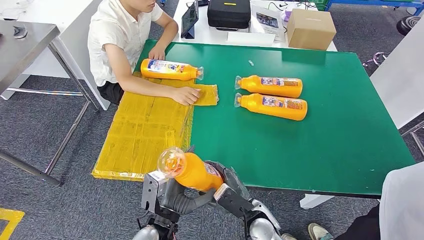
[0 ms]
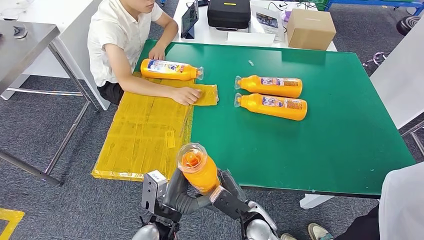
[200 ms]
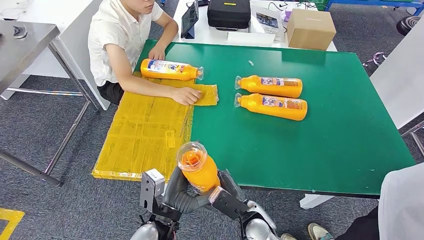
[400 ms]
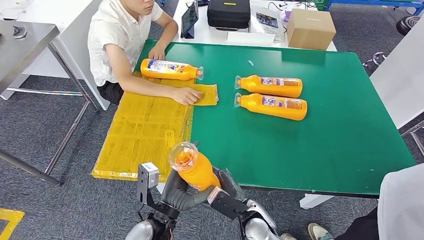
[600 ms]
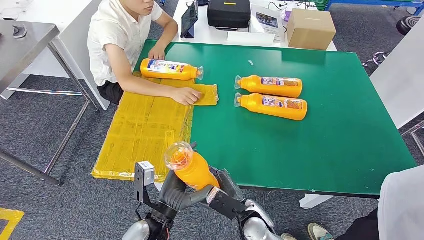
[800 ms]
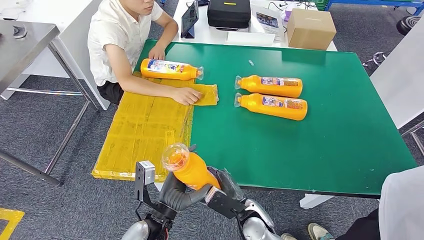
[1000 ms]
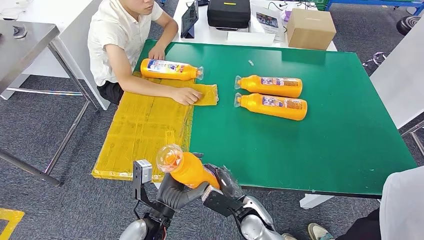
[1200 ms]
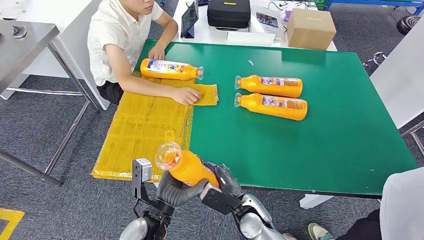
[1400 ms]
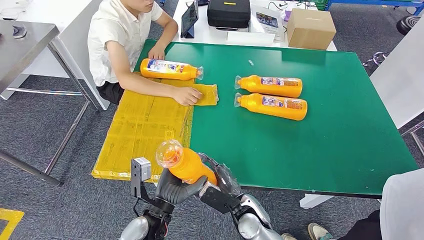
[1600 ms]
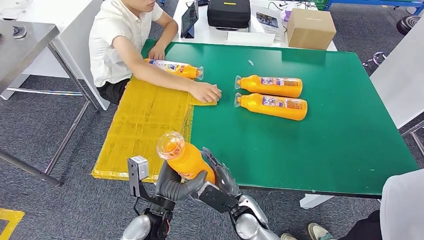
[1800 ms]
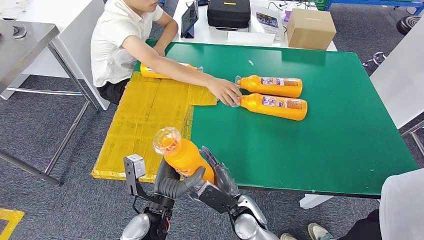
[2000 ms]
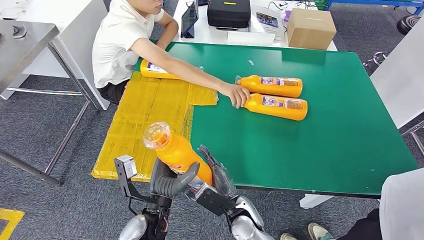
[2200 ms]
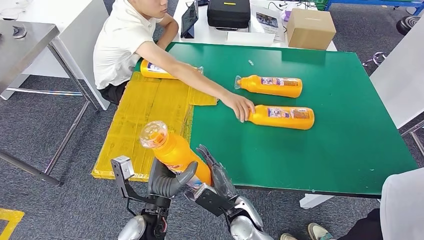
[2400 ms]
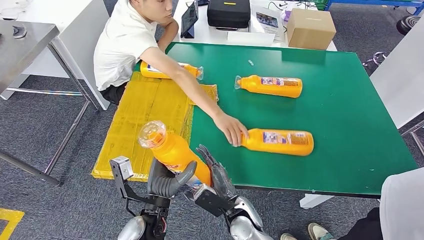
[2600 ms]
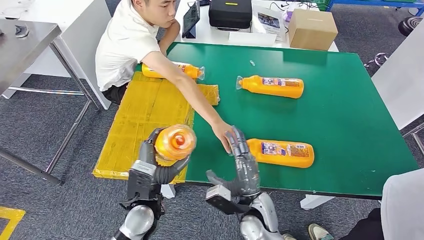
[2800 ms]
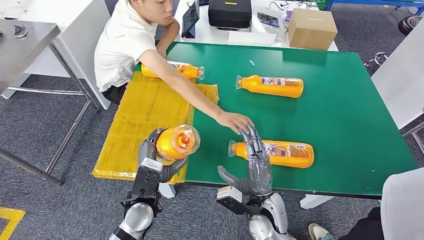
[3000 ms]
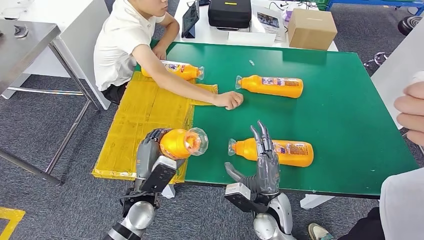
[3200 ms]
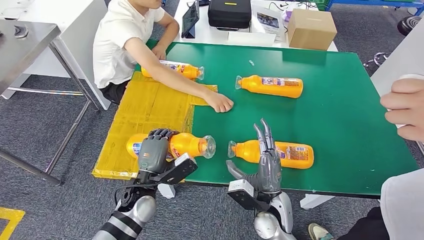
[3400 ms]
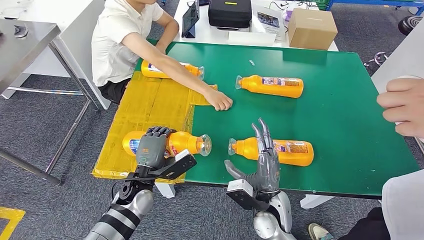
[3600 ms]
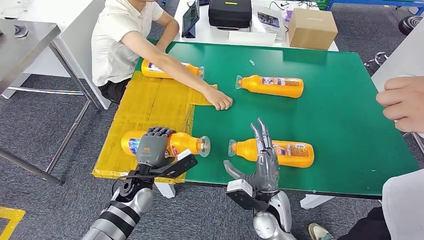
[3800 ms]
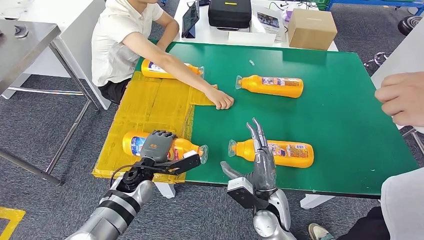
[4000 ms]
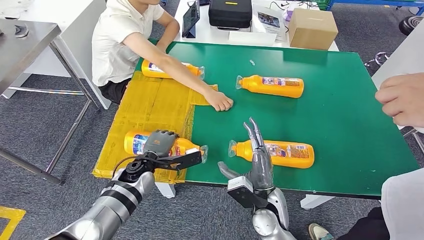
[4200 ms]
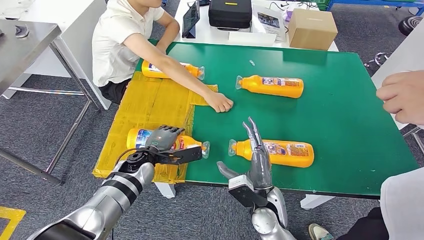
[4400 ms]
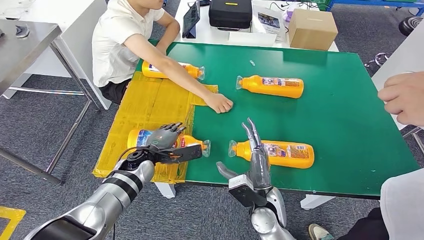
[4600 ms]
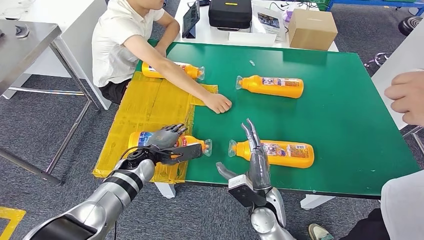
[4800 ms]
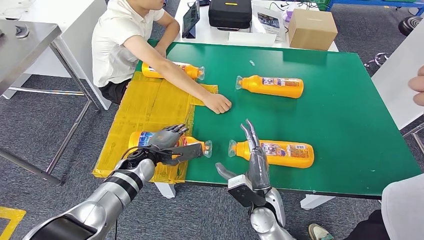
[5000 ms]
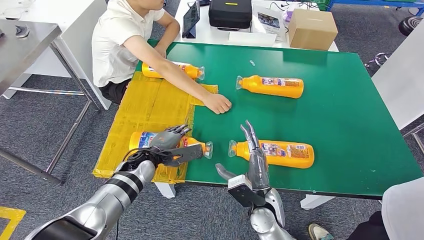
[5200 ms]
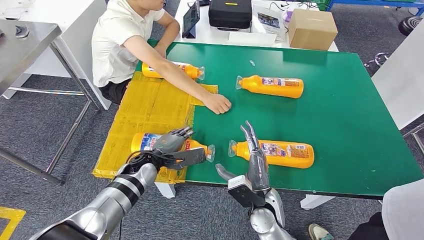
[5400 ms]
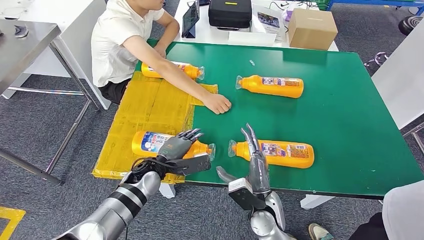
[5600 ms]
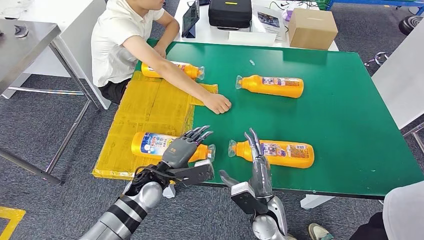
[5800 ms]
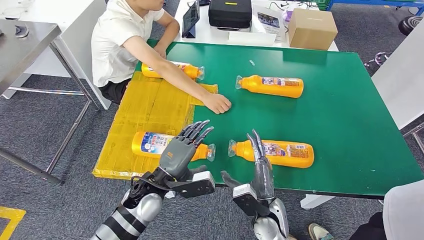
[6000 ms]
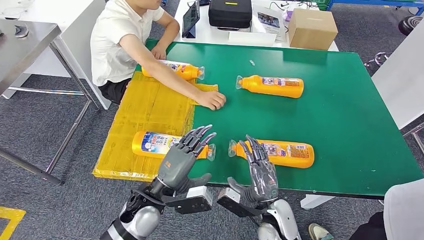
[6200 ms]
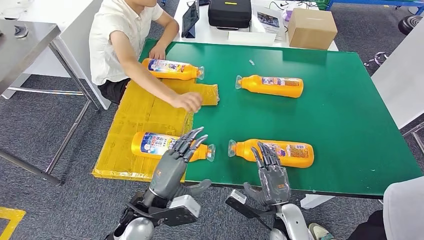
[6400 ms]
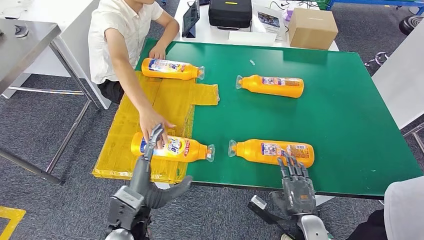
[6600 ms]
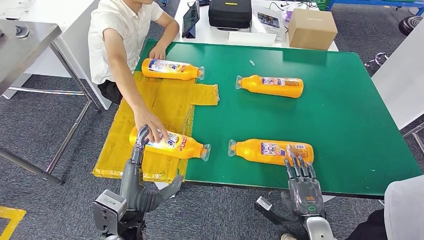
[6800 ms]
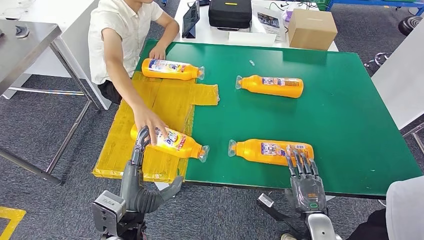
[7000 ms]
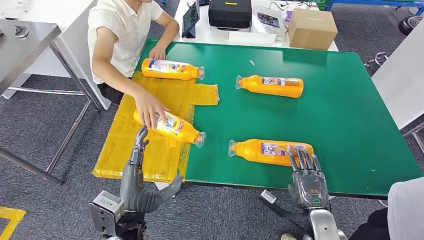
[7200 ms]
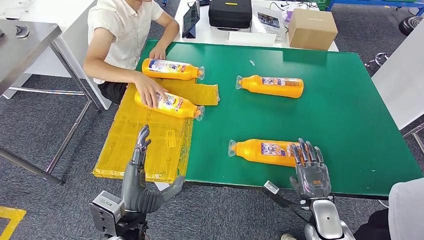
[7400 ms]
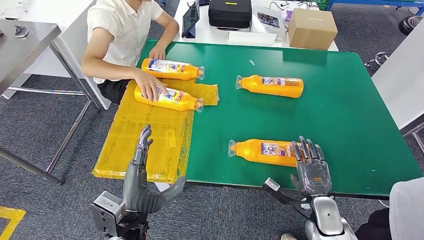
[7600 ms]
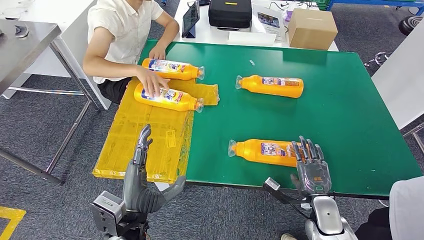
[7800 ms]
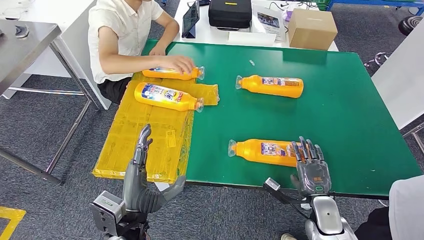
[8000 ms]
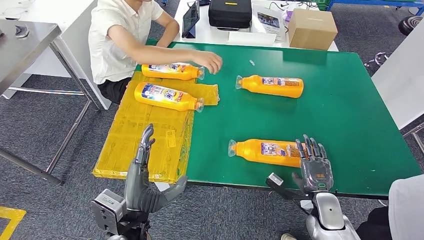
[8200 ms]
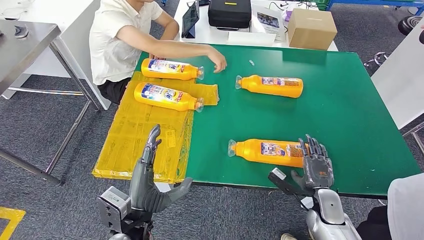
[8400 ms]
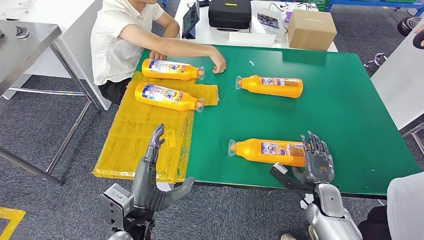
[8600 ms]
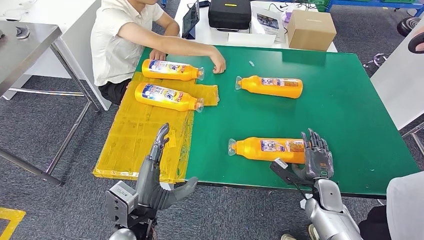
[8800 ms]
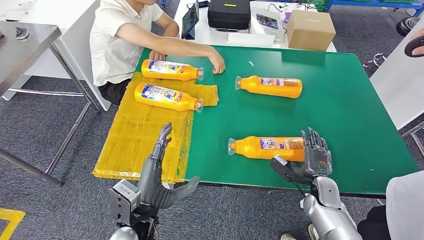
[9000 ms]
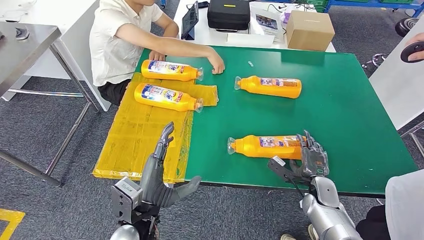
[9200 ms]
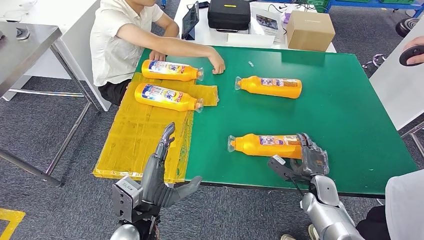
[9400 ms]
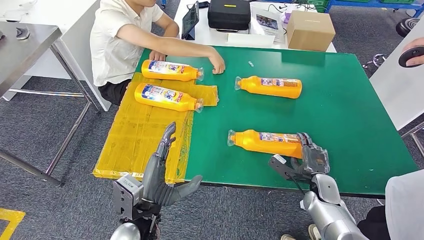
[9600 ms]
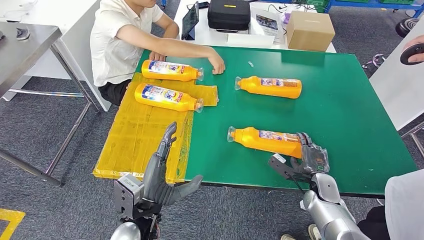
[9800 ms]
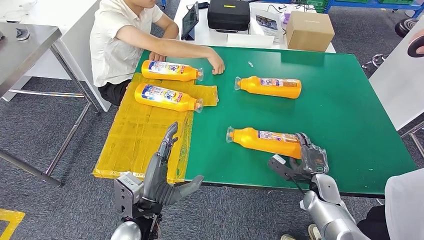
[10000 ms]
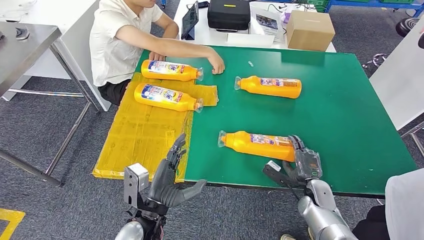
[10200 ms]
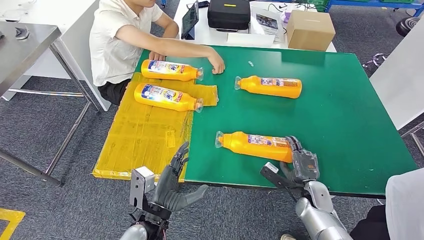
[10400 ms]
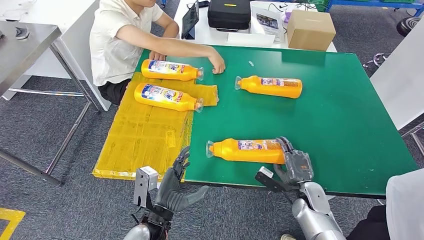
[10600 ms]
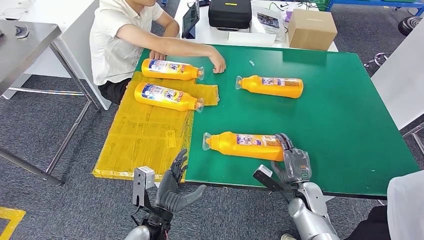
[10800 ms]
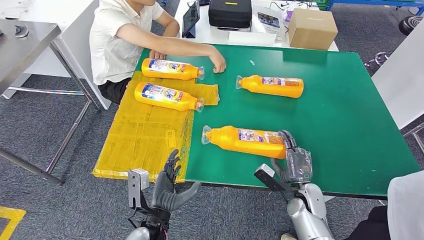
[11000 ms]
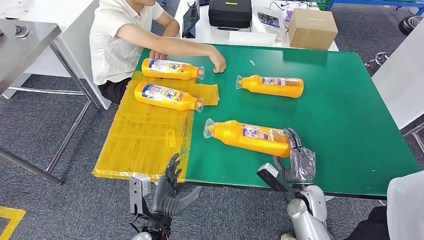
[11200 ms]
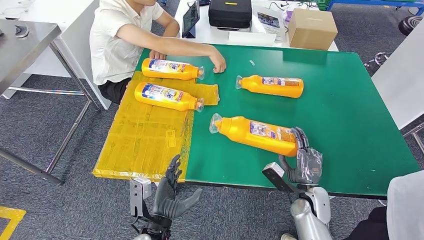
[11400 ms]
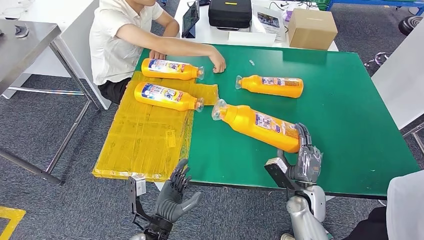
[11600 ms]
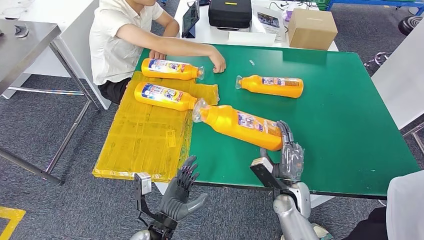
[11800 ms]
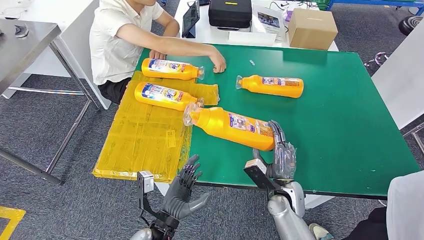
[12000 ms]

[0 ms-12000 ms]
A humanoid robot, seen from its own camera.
Step, 800 ms to 5200 ms: Flip the fast-moving consumer goods bottle to the front side.
0 ms to 1600 ms: The hands stay close to where they were, moving slightly.
3000 ms to 4400 ms: The left hand goes approximately 10 cm forward.
4400 ms to 6000 ms: The left hand is displaced backward by approximately 10 cm.
6000 ms to 7600 ms: The left hand goes about 10 cm backward; the right hand is displaced to the right by roughly 15 cm.
7600 ms to 9000 ms: The right hand heads forward, covering approximately 5 cm.
10400 ms to 12000 ms: The right hand moves to the left, some 10 cm.

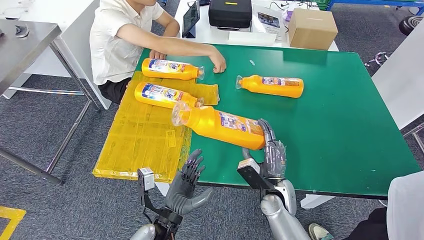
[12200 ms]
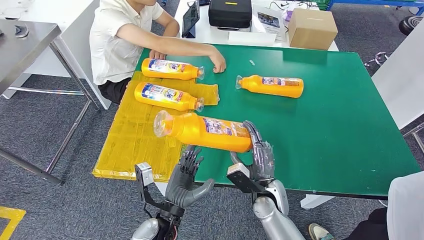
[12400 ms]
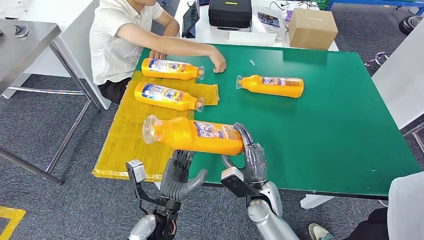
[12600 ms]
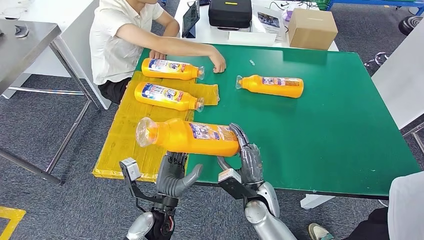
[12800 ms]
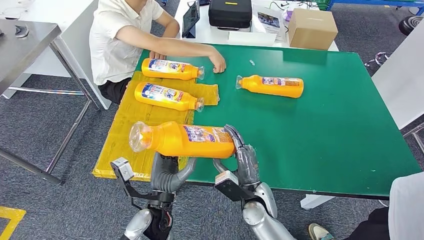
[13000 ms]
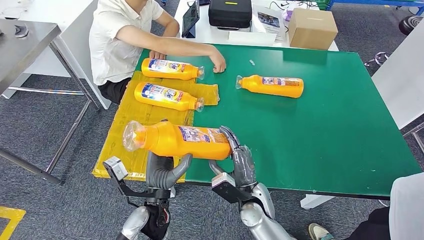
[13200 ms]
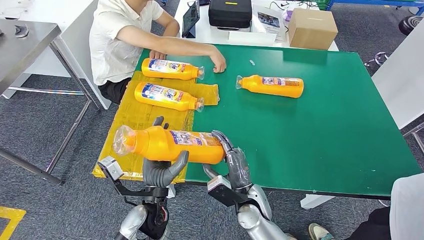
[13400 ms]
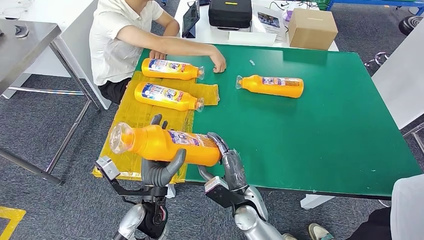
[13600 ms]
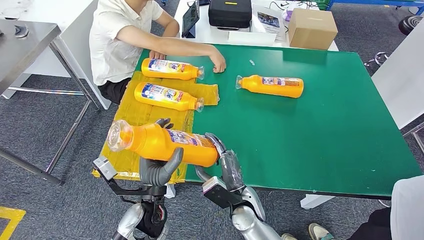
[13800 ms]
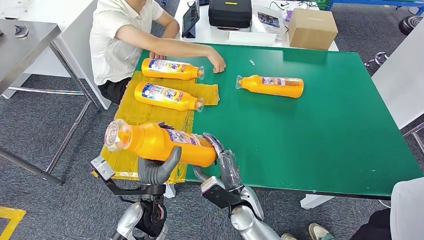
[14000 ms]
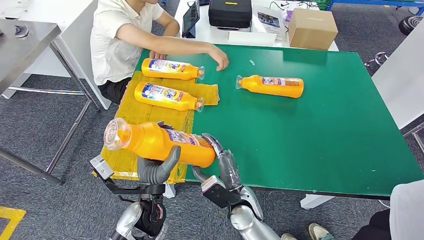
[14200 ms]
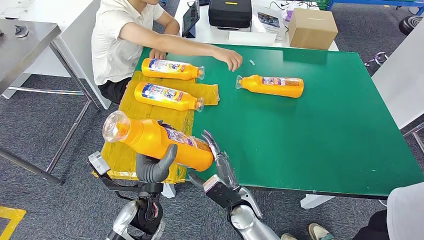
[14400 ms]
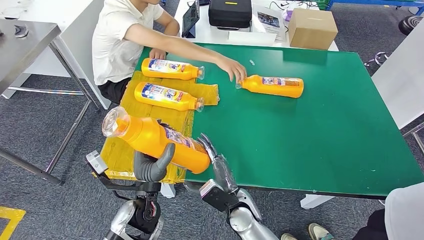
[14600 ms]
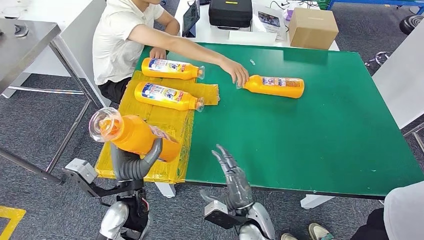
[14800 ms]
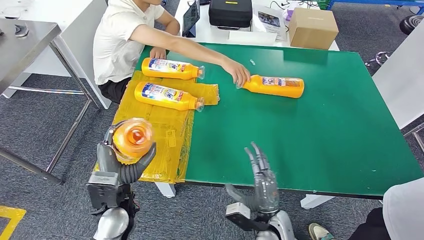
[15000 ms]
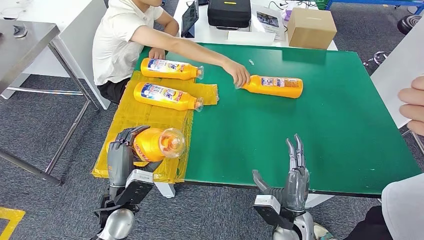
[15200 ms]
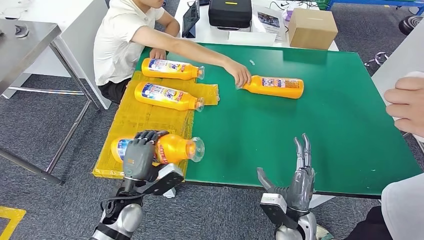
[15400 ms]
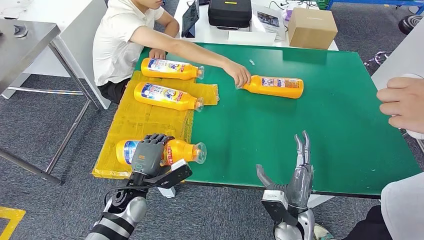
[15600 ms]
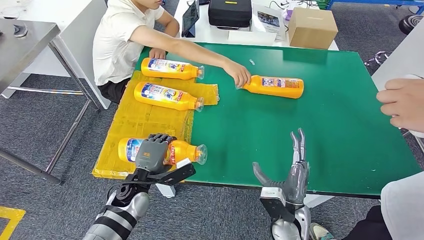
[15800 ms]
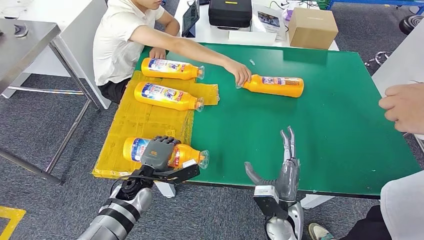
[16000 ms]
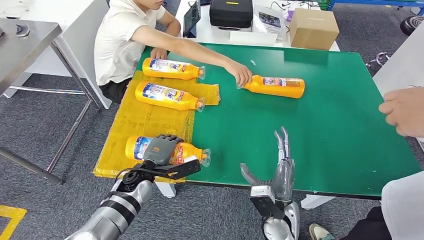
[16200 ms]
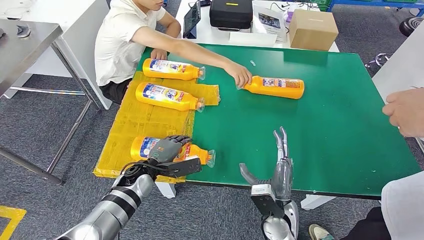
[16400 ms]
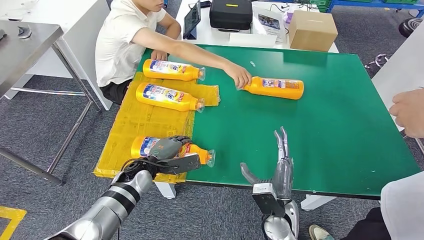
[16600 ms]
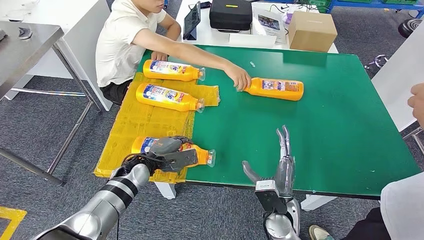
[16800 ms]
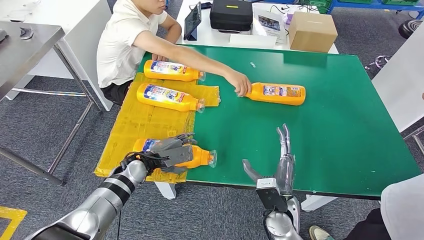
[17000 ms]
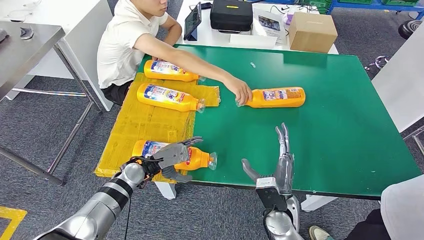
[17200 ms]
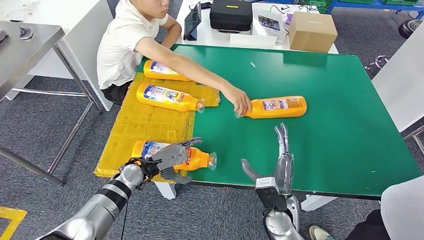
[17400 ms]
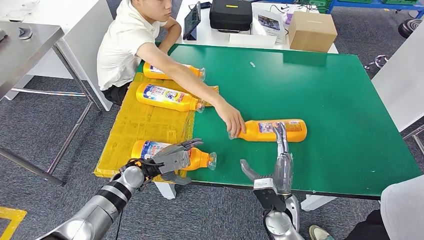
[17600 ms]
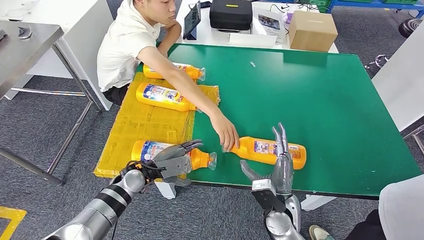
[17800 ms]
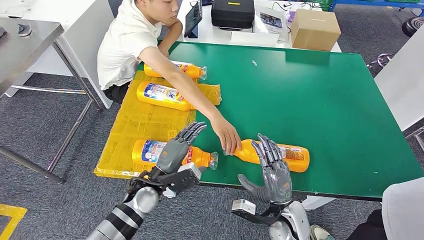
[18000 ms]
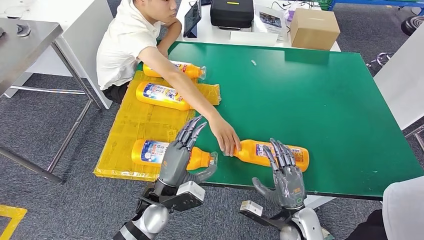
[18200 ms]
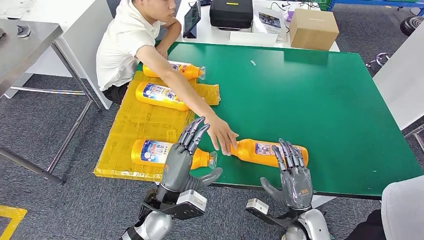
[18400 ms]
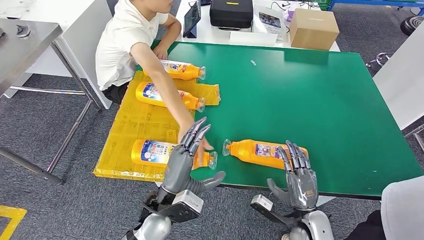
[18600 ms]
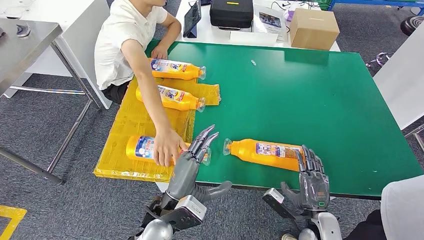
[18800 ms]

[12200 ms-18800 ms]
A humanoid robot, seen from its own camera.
Step, 12600 ms to 16400 ms: Flip the fast-moving consumer goods bottle to the front side.
12200 ms to 13800 ms: The right hand travels to the left by approximately 10 cm. Meanwhile the left hand is displaced upward by about 5 cm.
13800 ms to 15400 ms: The right hand goes some 10 cm to the right. Meanwhile the left hand goes about 10 cm to the left.
